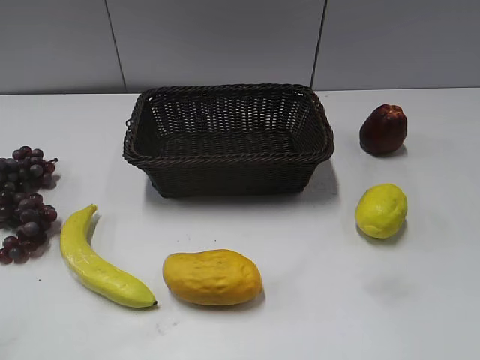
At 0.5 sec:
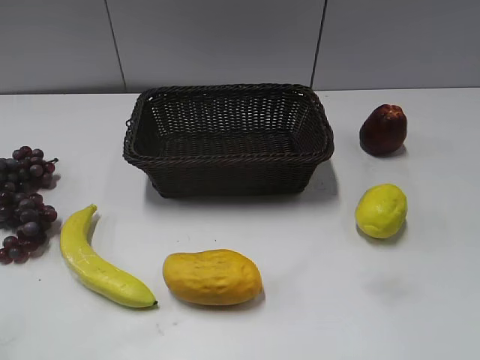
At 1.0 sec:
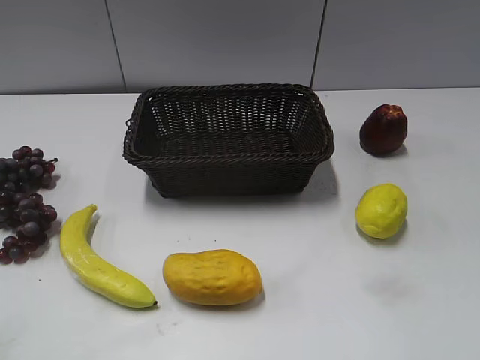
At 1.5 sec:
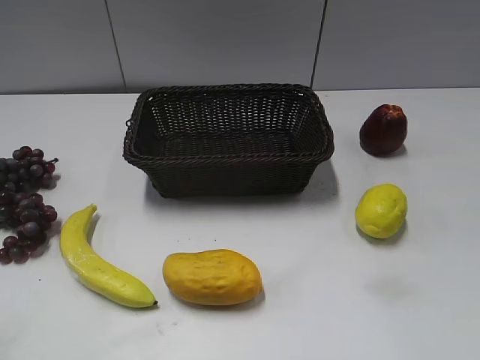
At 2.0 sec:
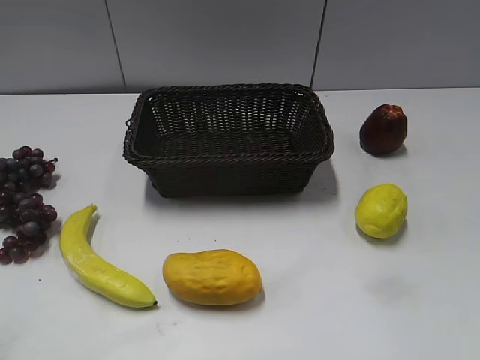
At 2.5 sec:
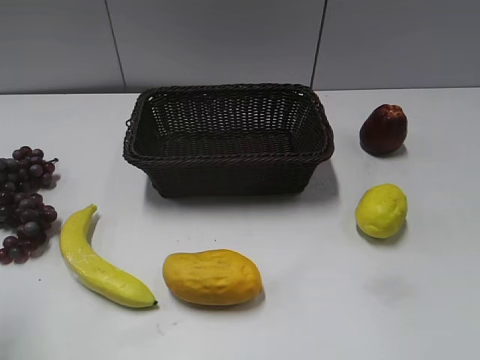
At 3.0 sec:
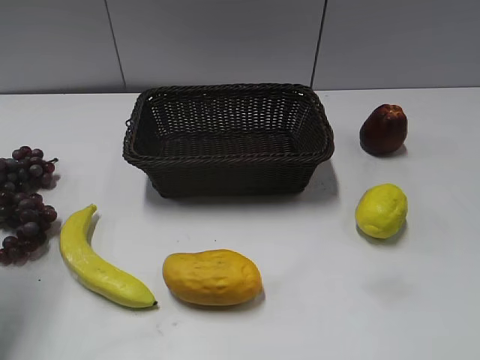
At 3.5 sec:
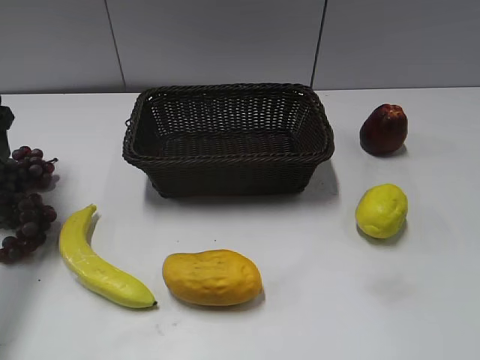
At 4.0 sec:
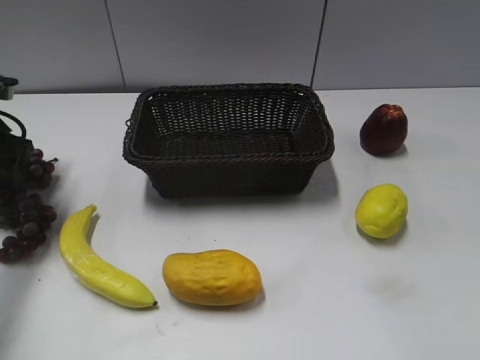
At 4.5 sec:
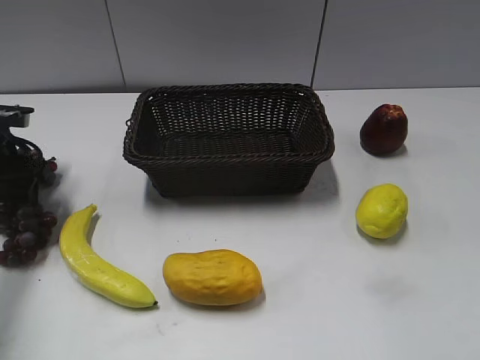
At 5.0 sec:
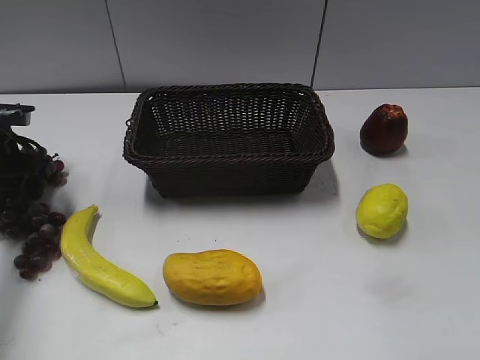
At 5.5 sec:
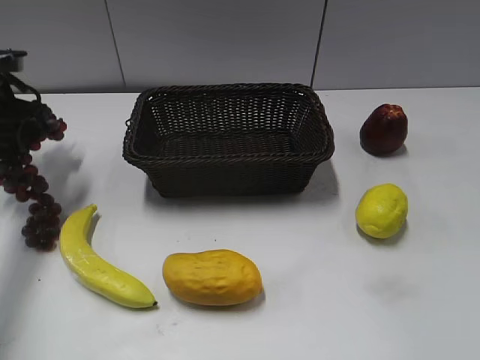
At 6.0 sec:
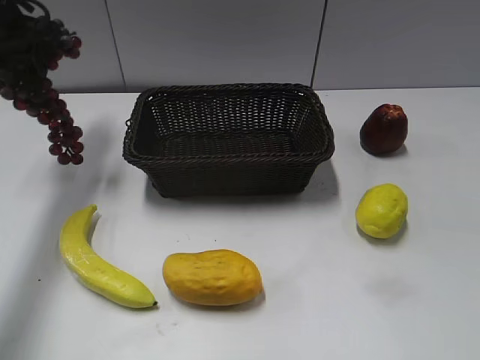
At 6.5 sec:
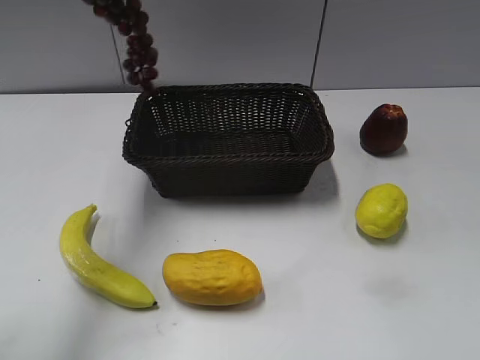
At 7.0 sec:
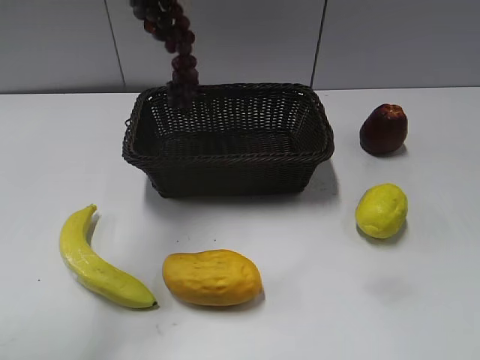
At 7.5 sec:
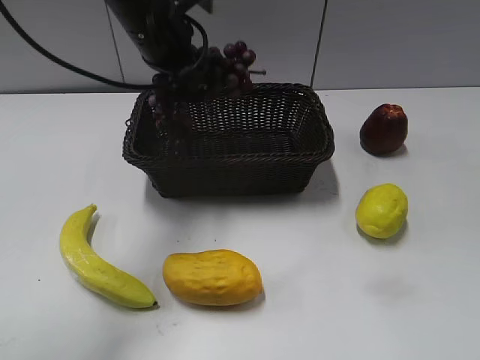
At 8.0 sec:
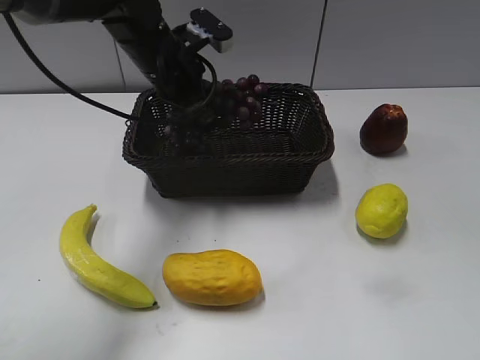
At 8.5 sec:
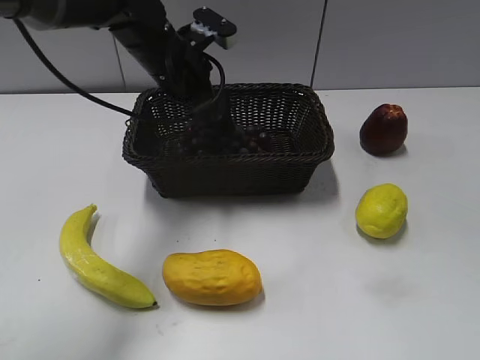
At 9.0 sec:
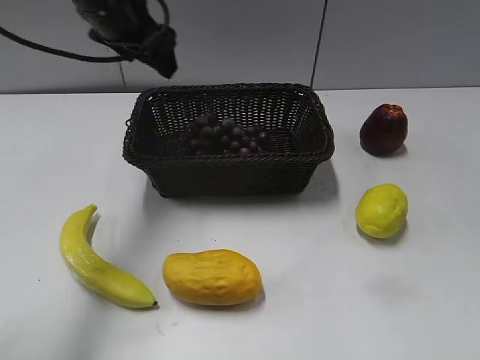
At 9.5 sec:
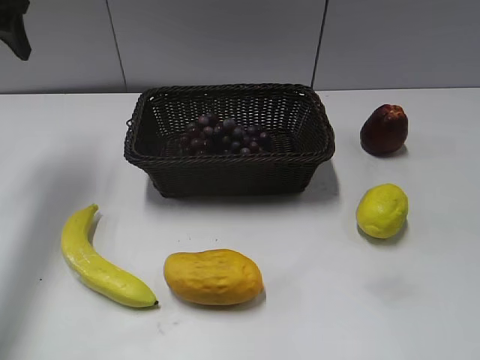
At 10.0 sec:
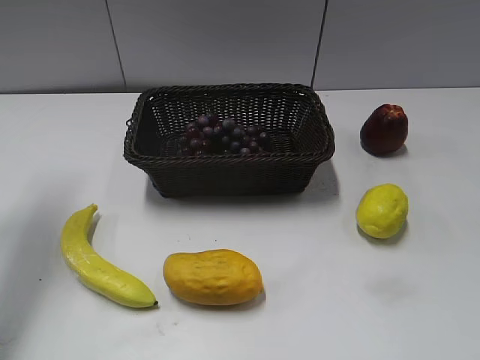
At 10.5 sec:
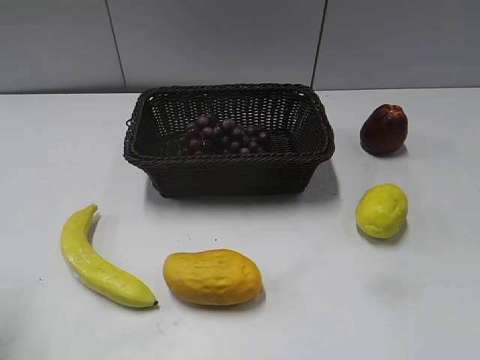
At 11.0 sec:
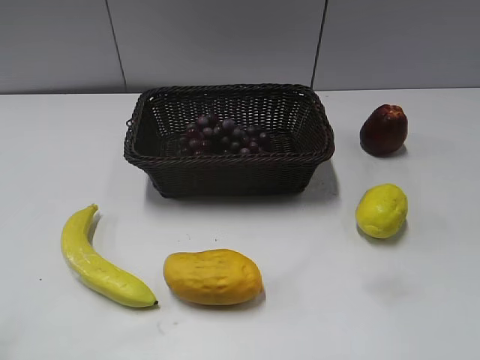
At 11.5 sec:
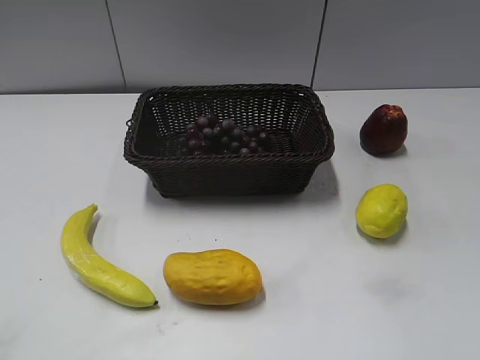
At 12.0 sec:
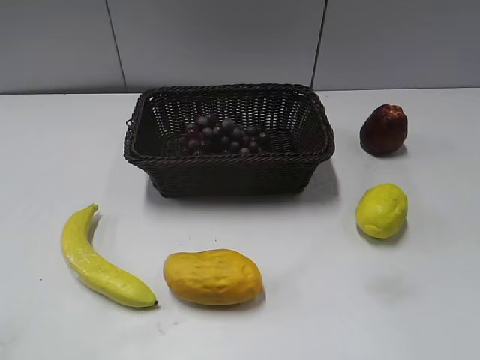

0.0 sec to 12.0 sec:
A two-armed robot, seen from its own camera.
Step, 3.5 sec to 4.5 sec: Grasp the grape with left gripper.
Step, 5.0 sec to 8.0 sec: Place the grape in the basket with left gripper.
2.0 sec to 4.0 sec: The left gripper is displaced forward by roughly 30 cm.
4.0 sec to 6.0 sec: The left gripper travels upward and forward by approximately 10 cm, and closes.
6.0 sec to 8.0 sec: The left gripper heads to the right, covering about 20 cm.
8.0 sec to 10.0 sec: The left gripper moves to the left, some 20 cm, and opens up.
10.0 sec to 12.0 sec: The left gripper heads backward, covering about 35 cm.

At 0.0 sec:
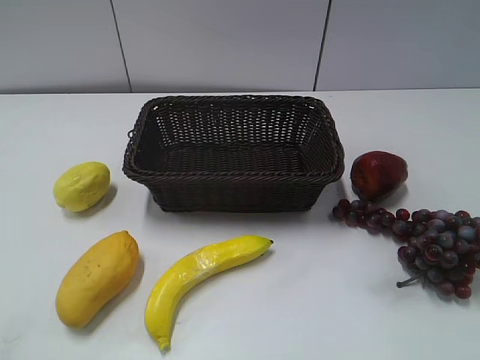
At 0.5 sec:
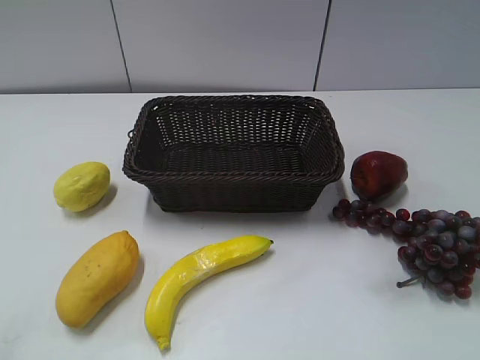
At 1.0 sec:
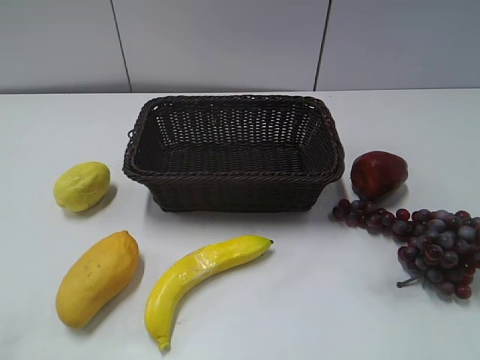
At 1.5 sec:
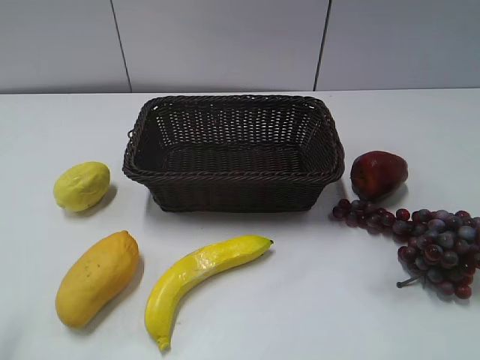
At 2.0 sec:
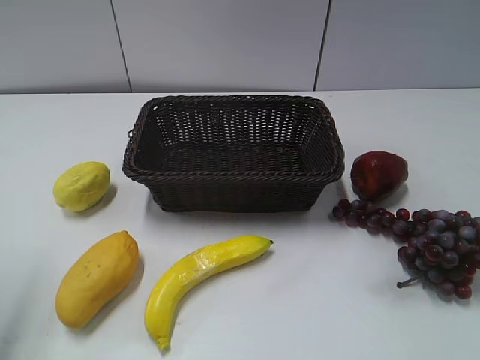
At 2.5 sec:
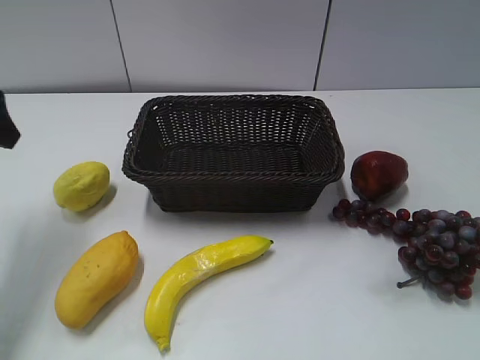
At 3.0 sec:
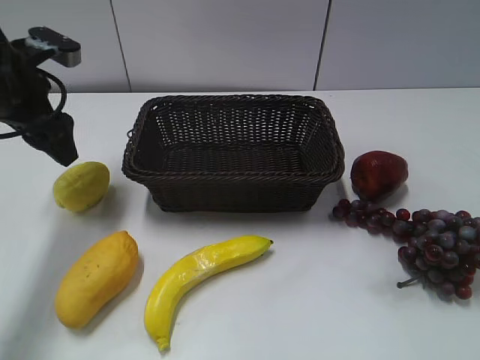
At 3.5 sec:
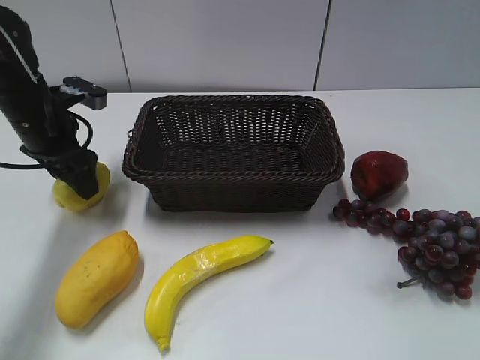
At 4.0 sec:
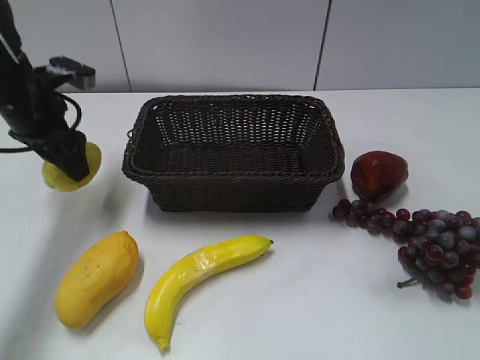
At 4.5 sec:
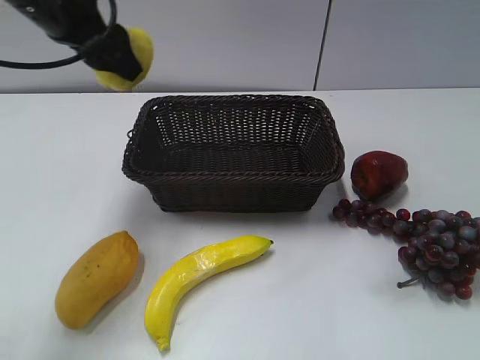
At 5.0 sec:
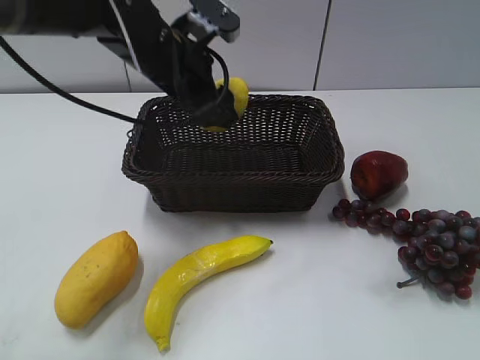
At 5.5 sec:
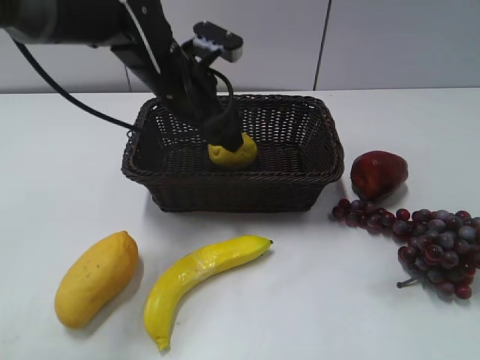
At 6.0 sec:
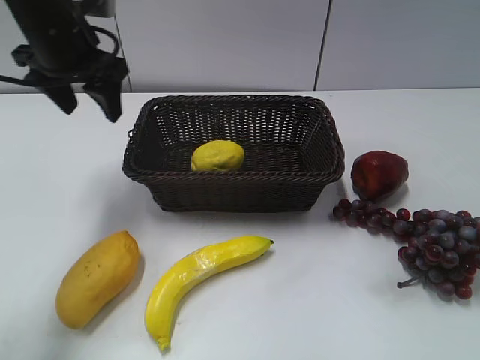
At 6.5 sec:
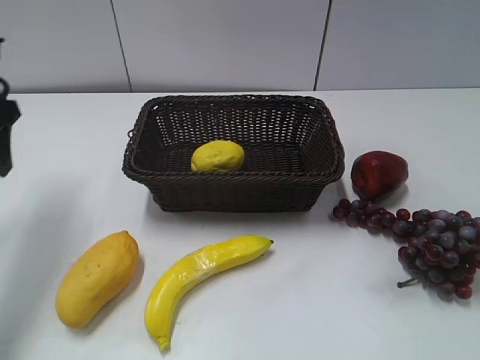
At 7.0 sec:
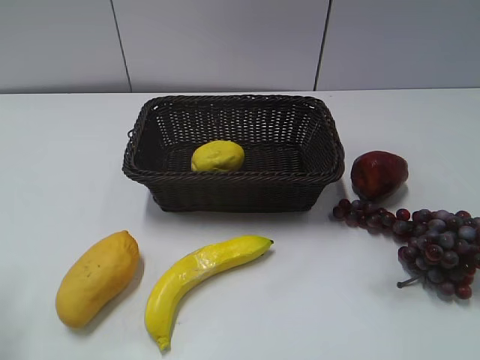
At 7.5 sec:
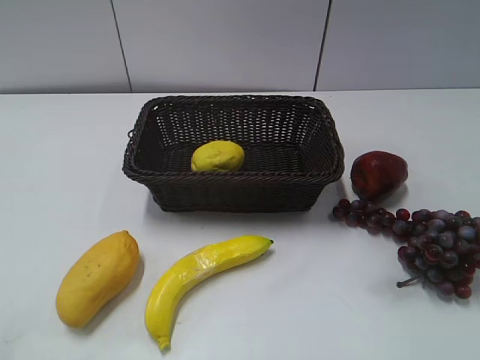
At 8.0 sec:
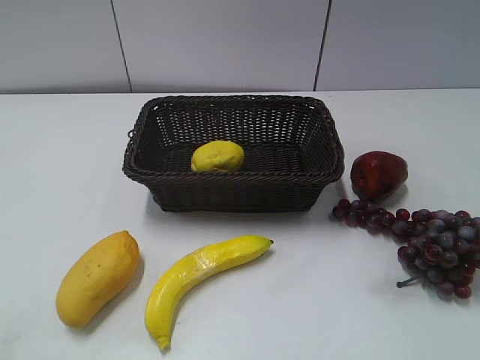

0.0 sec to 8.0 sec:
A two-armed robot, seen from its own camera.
Step, 2.5 sec to 3.5 sec: Grasp the lemon with left gripper.
Step, 4.0 sec to 5.5 sec: Place the lemon in the basket with left gripper.
2.0 sec to 4.0 sec: The left gripper moves forward and downward, approximately 20 cm.
4.0 sec to 6.0 sec: The left gripper goes roughly 5 cm upward, and reaches about 20 cm to the right, then returns.
6.0 sec to 8.0 sec: The left gripper is displaced backward by some 40 cm.

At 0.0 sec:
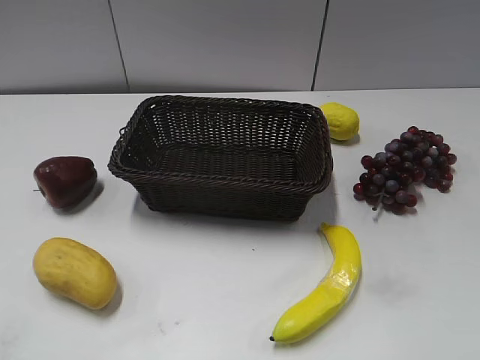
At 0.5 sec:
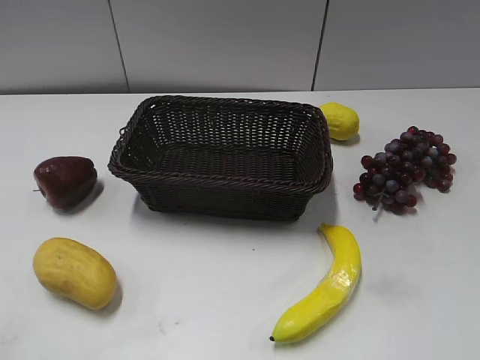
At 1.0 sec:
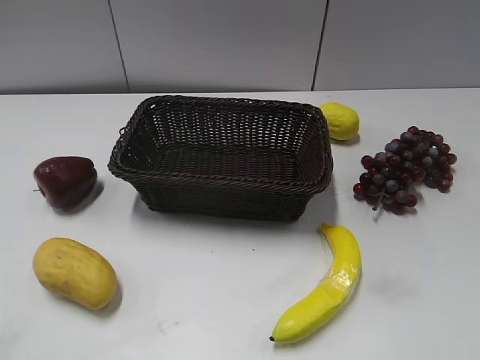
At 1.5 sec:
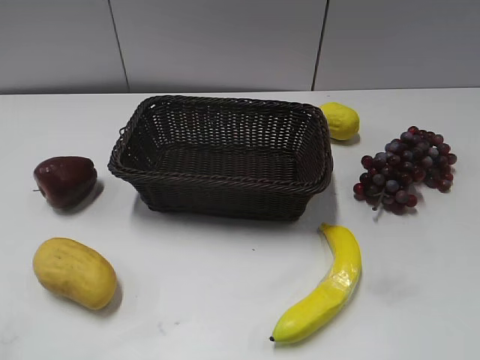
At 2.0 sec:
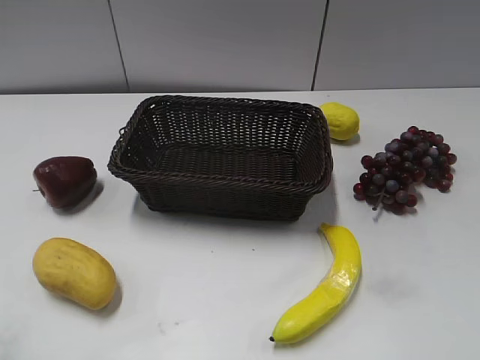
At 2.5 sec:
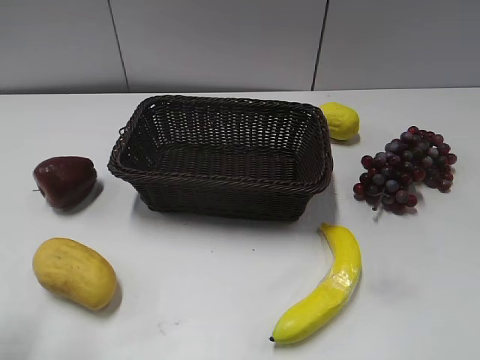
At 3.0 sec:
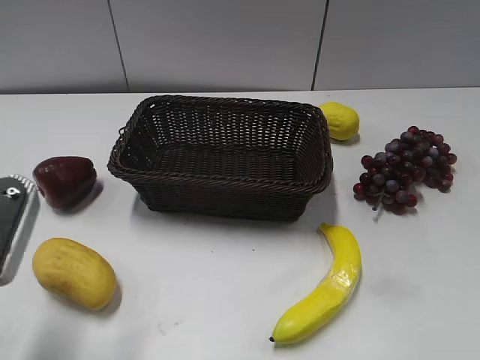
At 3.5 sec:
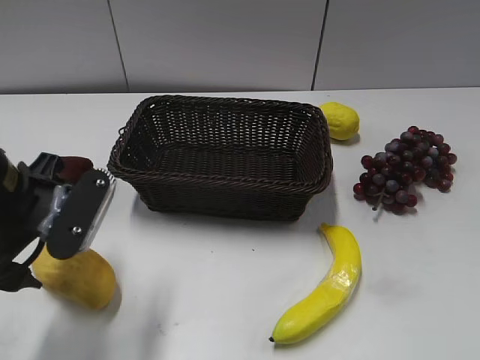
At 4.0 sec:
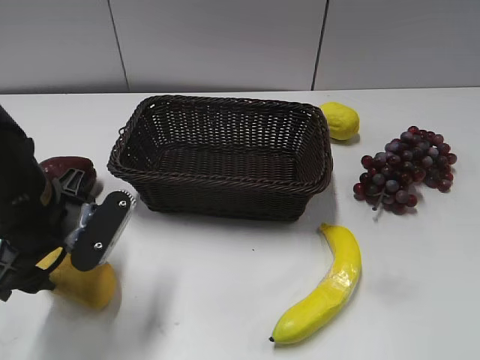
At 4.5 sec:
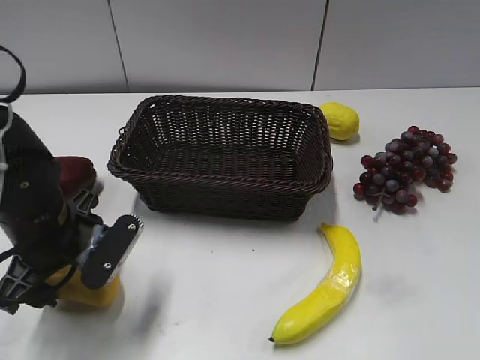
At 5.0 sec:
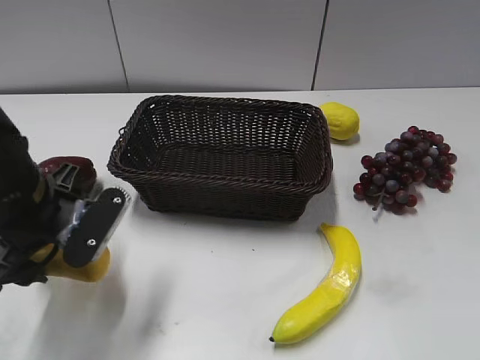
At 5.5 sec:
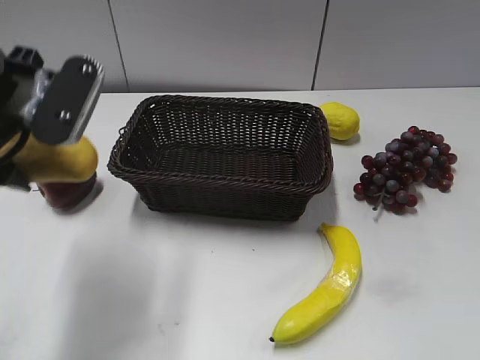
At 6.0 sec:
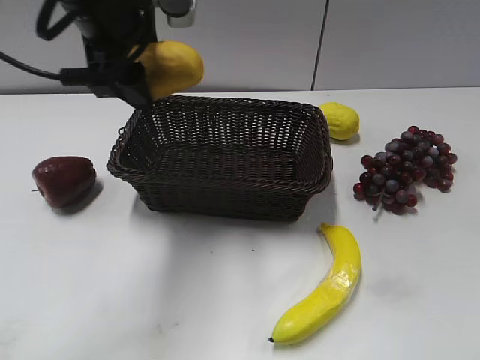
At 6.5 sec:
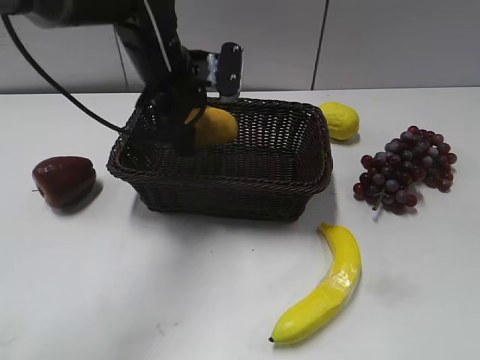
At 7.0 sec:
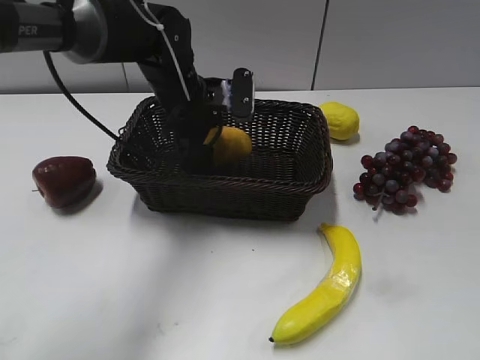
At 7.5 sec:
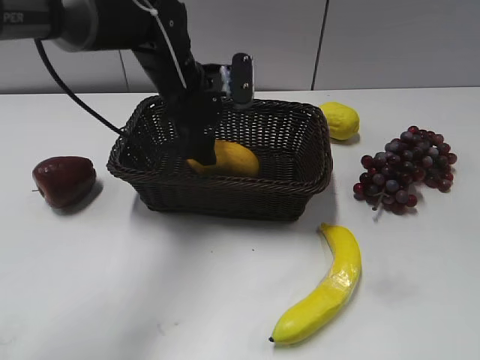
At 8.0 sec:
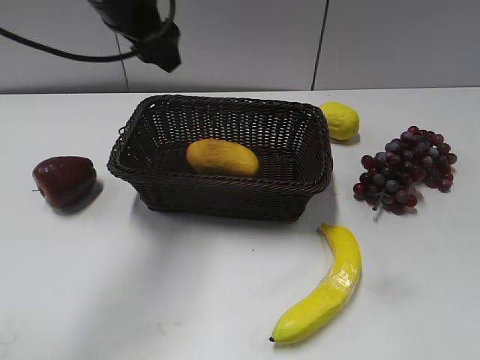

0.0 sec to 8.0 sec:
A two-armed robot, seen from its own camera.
Step, 3.0 sec to 4.5 sec: Grasp the mango with left gripper.
Step, 5.0 sec to 7.0 sec: Place the mango in the basket with left gripper.
2.0 sec to 4.0 sec: The left gripper heads forward, downward and to the right, covering about 25 cm, and opens up.
4.0 sec to 6.0 sec: The left gripper is displaced upward, forward and to the right by about 20 cm, and closes.
6.0 sec to 8.0 sec: The left gripper travels forward by some 5 cm, moves about 15 cm downward and comes back, and opens and closes again.
